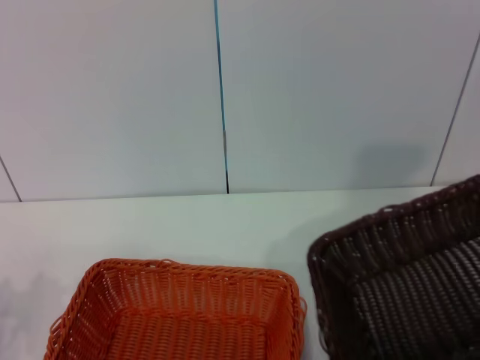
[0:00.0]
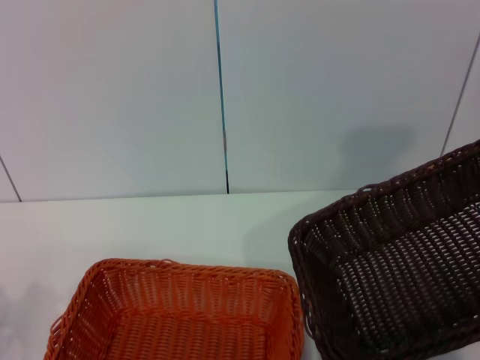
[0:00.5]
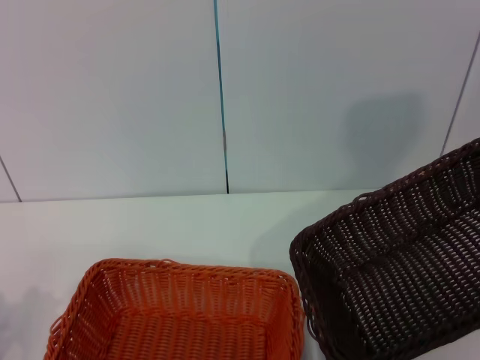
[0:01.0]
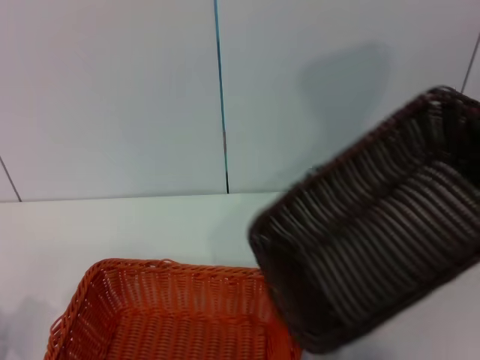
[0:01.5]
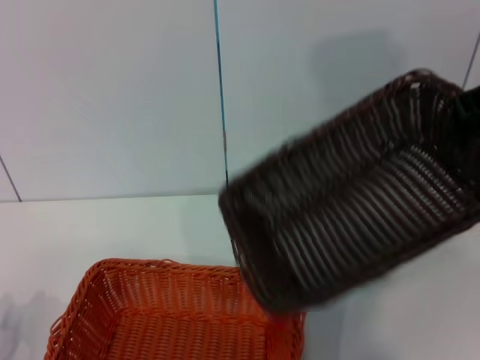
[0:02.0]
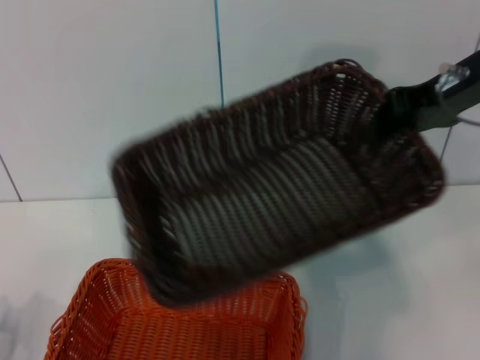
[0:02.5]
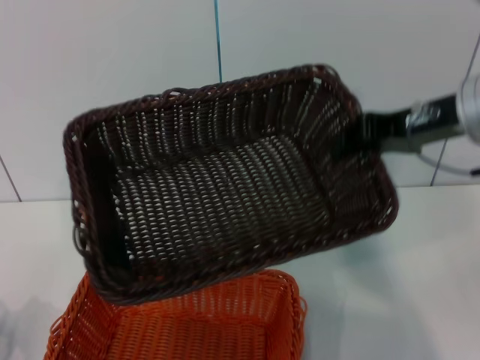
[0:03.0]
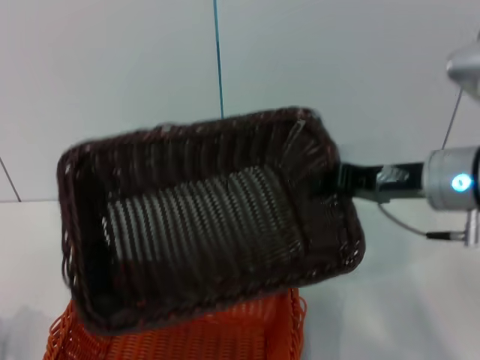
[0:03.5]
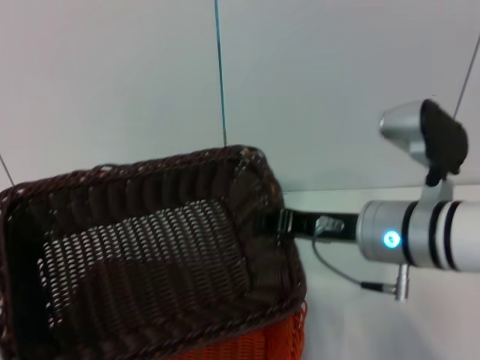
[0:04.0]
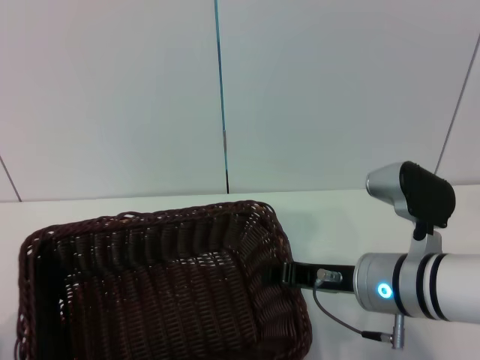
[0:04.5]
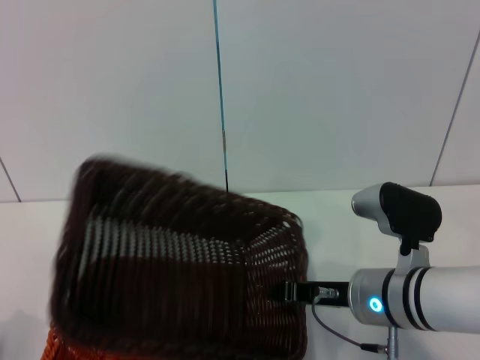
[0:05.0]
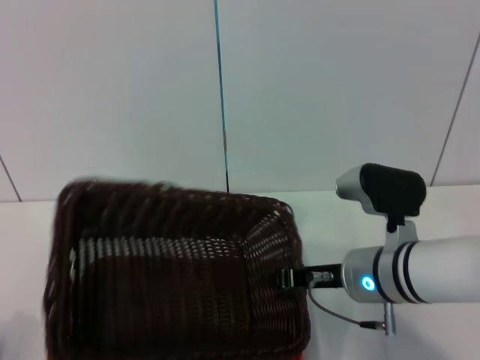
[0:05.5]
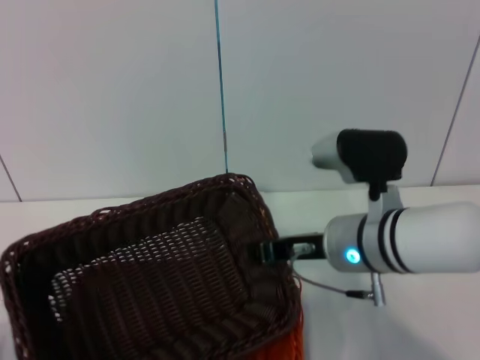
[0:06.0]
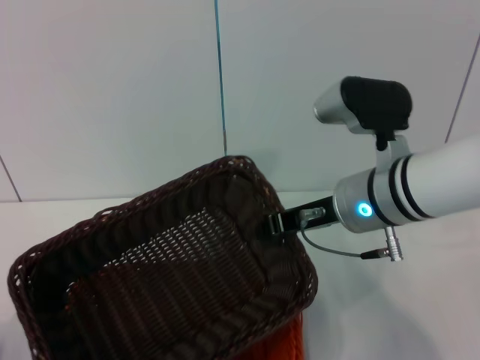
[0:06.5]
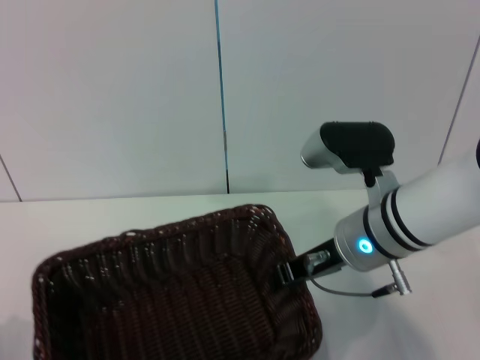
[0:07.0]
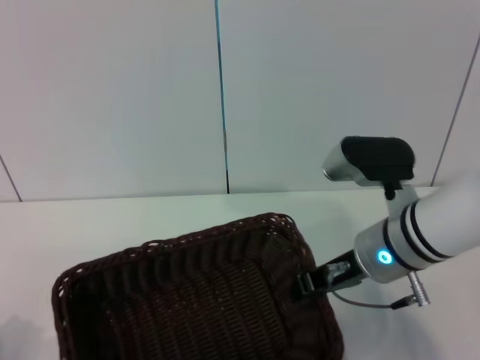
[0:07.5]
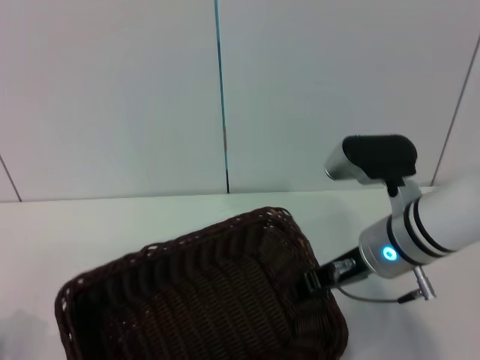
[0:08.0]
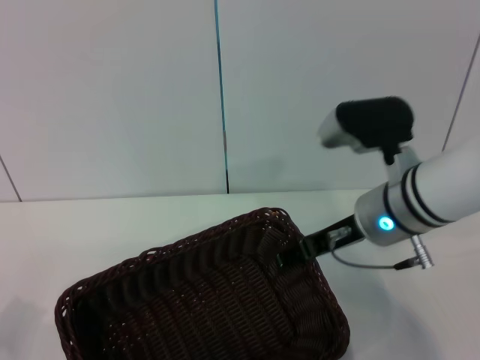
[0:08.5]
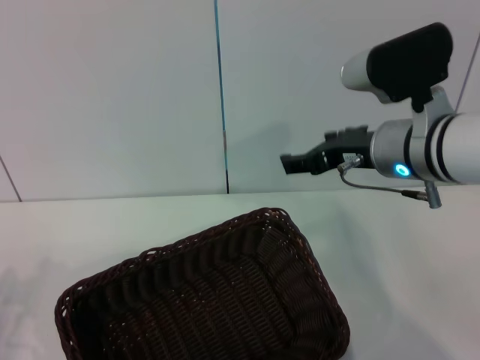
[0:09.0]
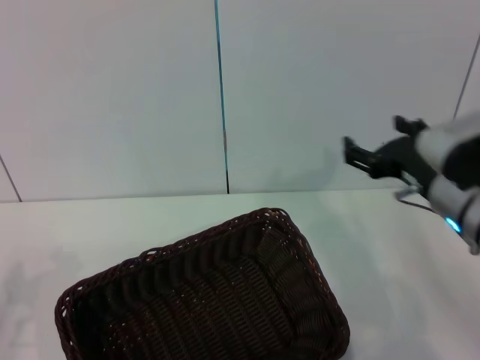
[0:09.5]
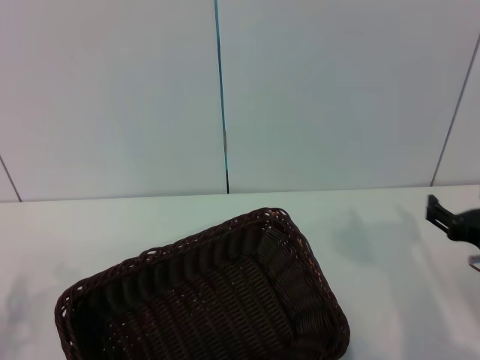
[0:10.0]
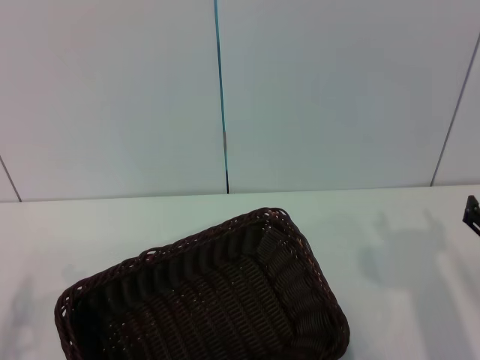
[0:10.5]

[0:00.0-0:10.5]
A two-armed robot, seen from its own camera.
Step, 0:00.0 to 0:08.0: Place the dark basket on the light basket with the right gripper.
0:00.0 to 0:02.0: The right gripper moves forward, to the left and upward, some 15 cm.
0:02.0 to 0:04.0: The right gripper goes roughly 20 cm downward and to the left.
0:04.0 to 0:06.5: The right gripper travels downward and back again, about 10 cm each way.
0:06.5 to 0:08.5: The right gripper opens up.
0:08.5 to 0:10.5: The right gripper is displaced to the right, downward and backward by some 20 cm, and opens.
